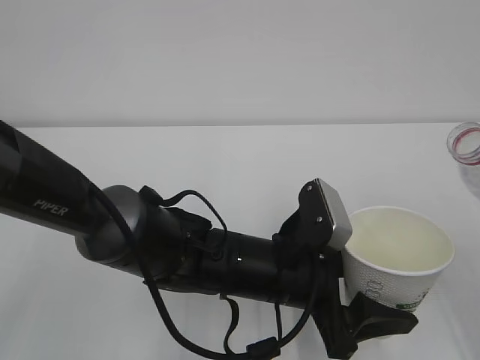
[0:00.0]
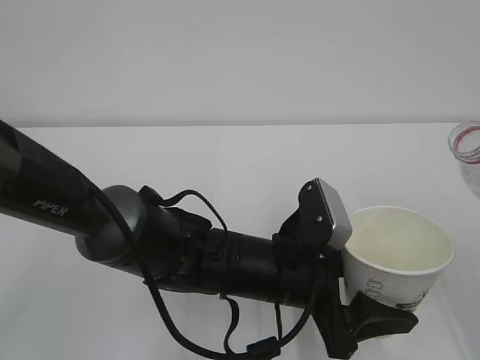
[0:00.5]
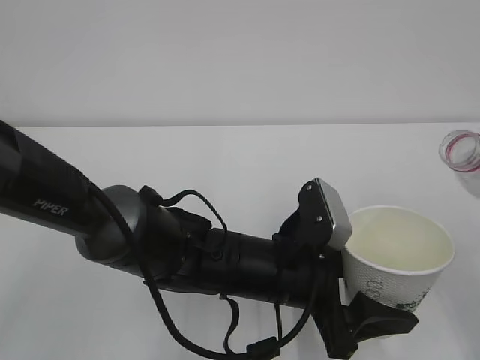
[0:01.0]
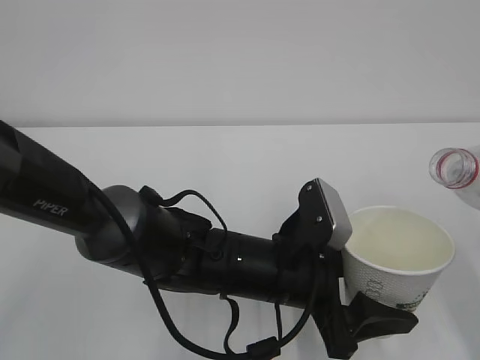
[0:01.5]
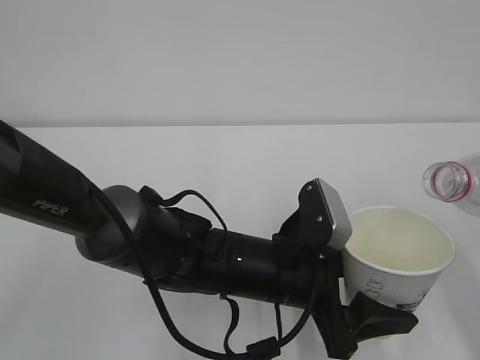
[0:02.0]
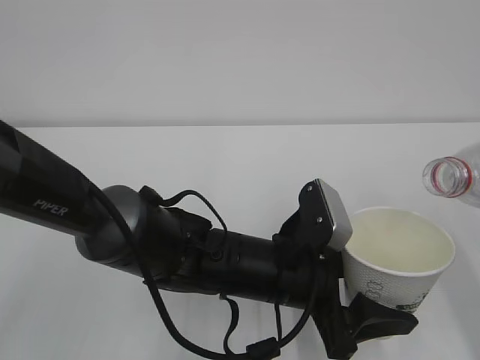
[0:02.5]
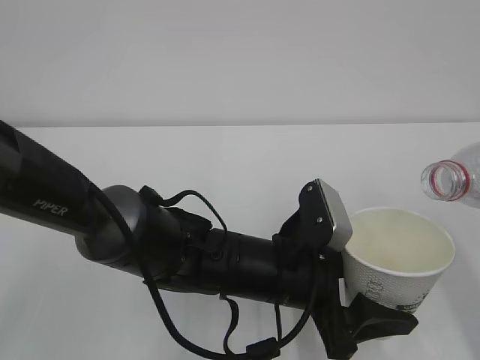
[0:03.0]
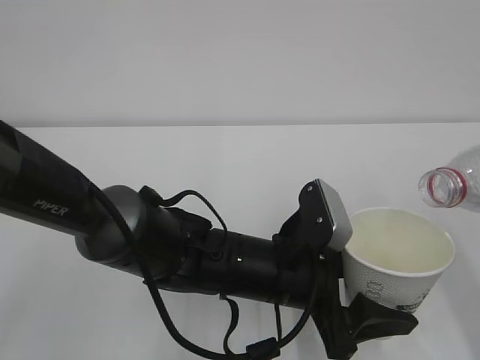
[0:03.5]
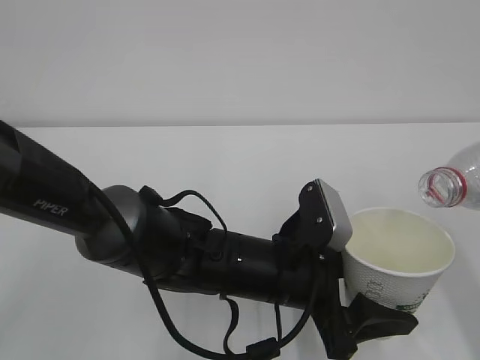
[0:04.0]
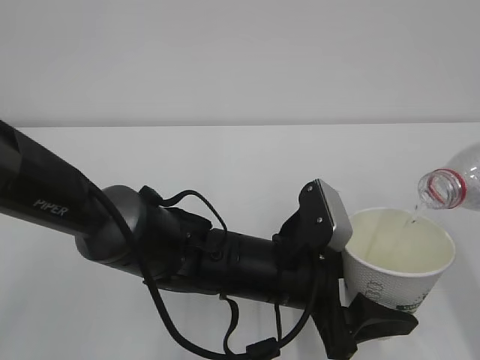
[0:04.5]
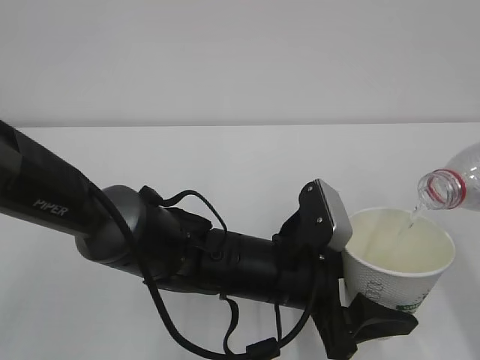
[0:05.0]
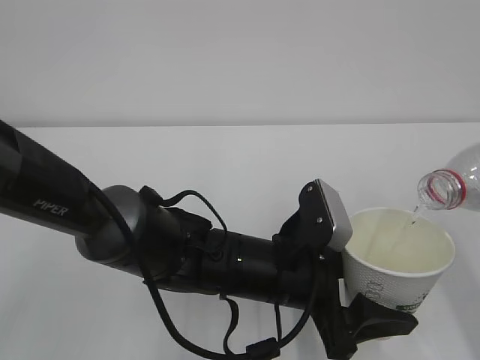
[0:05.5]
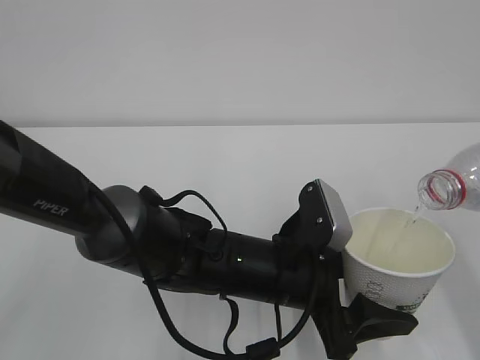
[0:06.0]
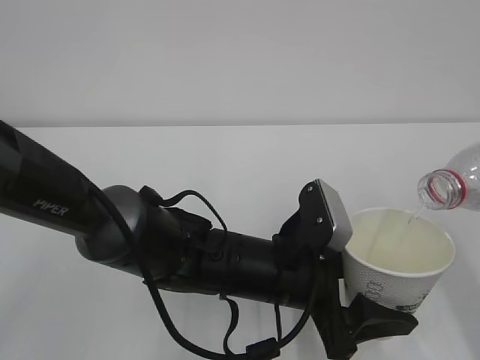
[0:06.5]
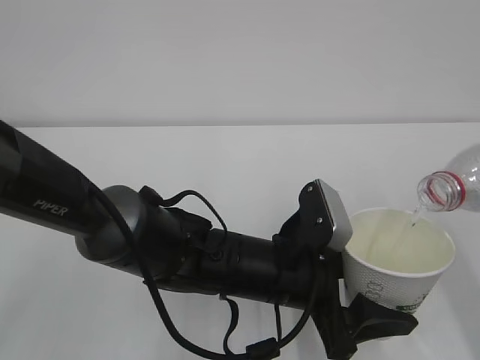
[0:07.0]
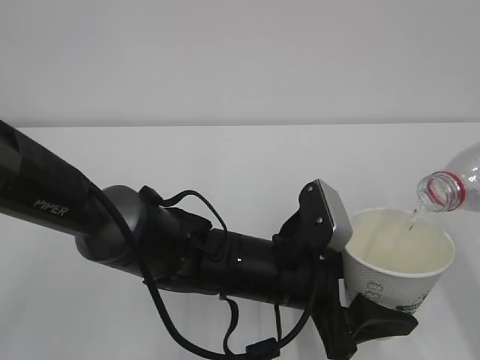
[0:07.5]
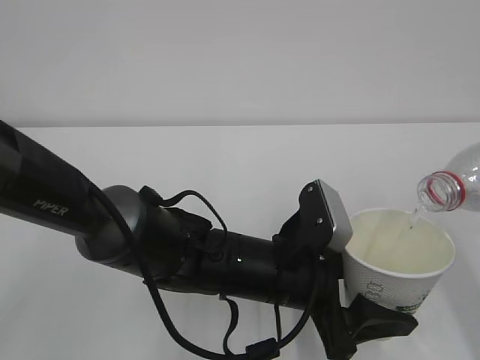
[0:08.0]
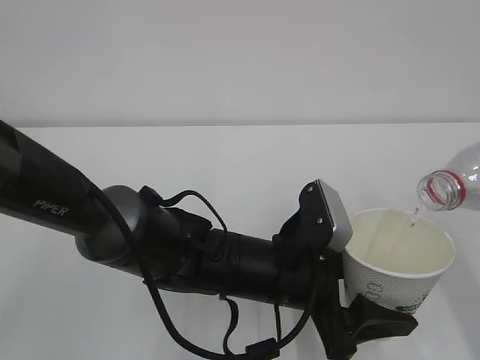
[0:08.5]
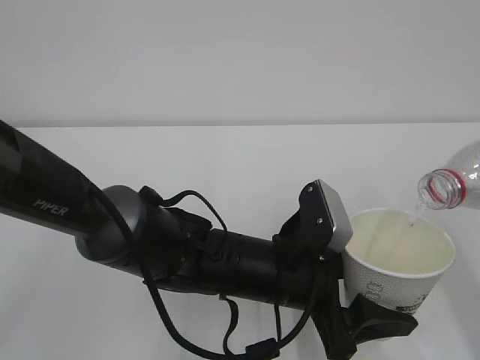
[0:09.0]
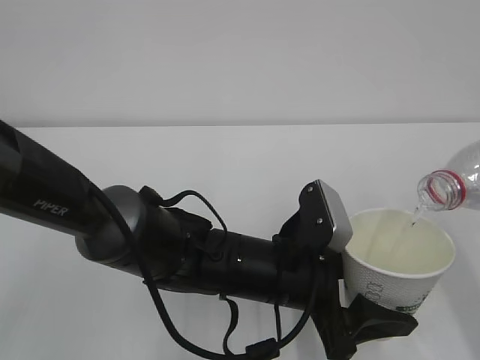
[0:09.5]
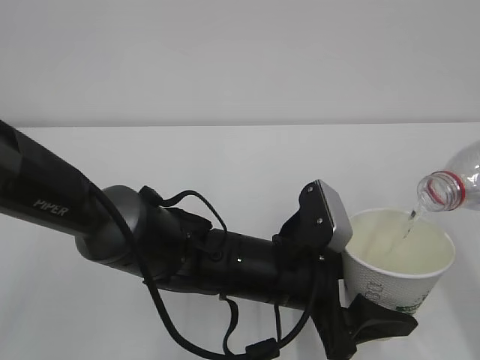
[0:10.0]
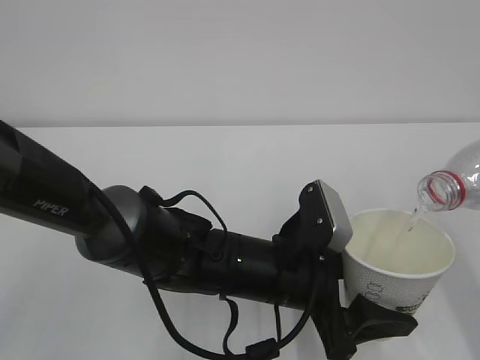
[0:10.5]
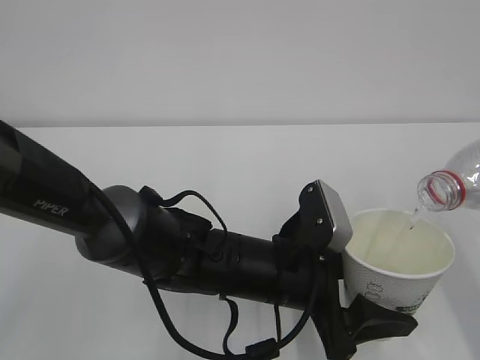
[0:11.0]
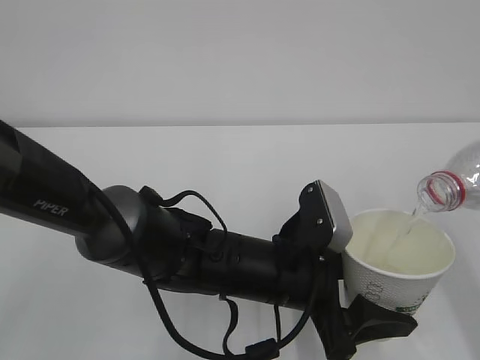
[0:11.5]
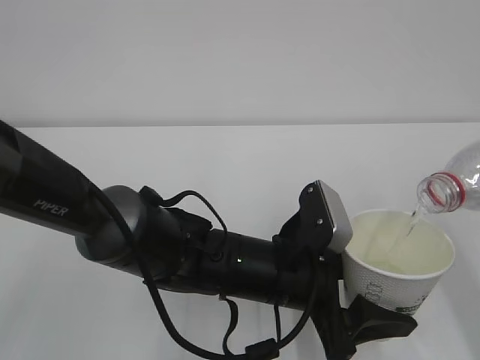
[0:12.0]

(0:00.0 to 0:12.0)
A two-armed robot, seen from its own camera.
0:00.0 - 0:02.0: There are only small adjustments of the grippers.
0:02.0 - 0:04.0: The grippers move only a little.
0:04.0 - 0:10.0: The two grippers keep their place.
0:10.0 - 0:12.0: The two grippers keep their place.

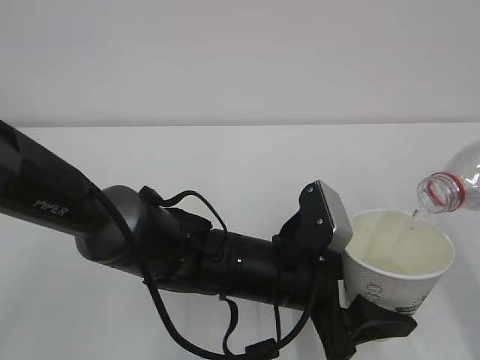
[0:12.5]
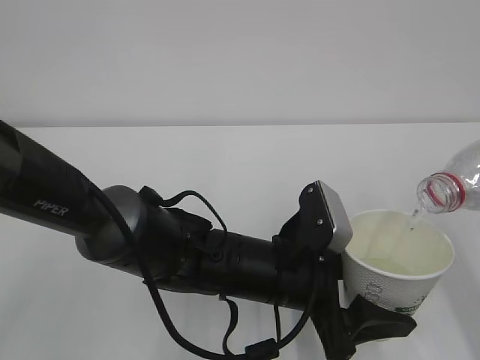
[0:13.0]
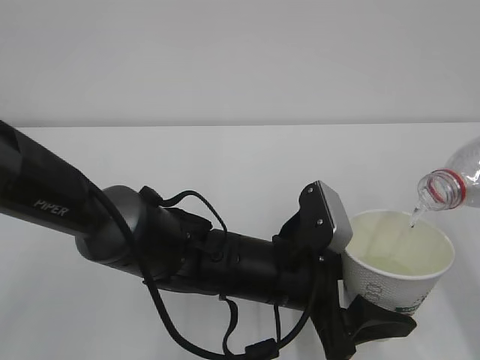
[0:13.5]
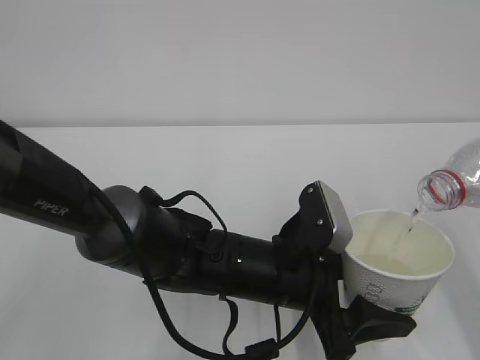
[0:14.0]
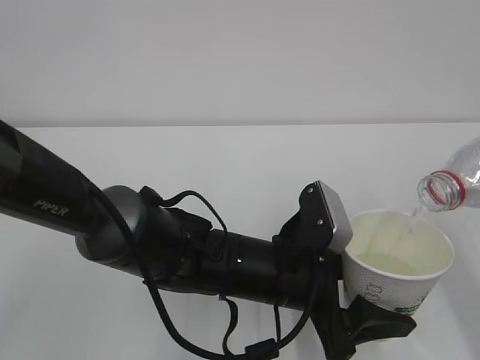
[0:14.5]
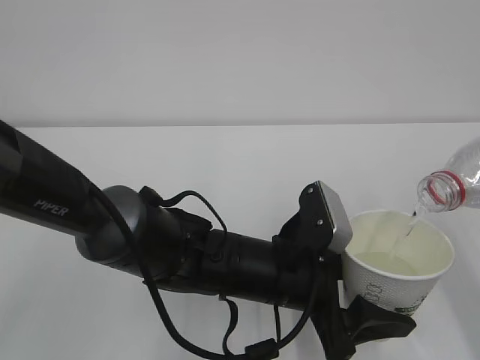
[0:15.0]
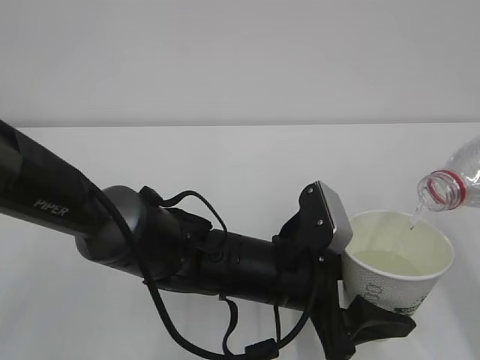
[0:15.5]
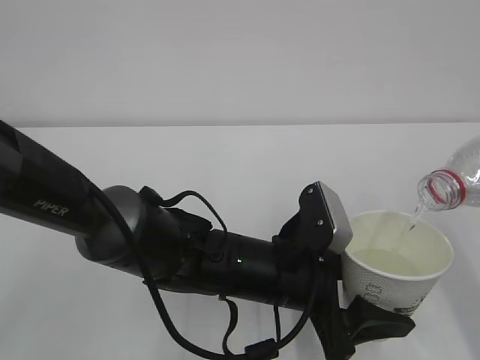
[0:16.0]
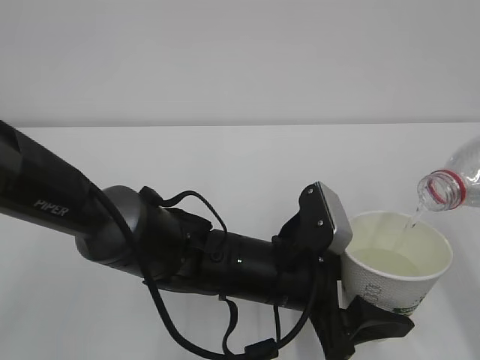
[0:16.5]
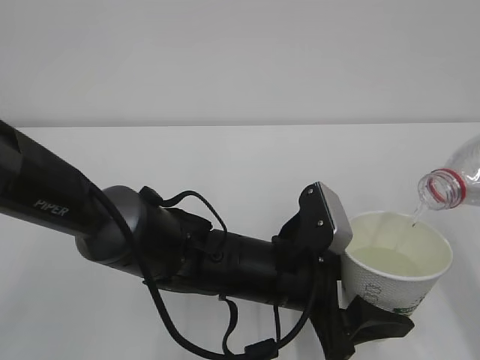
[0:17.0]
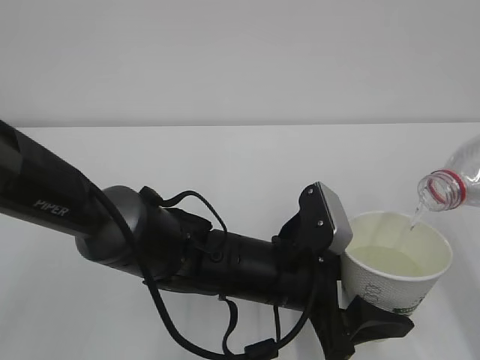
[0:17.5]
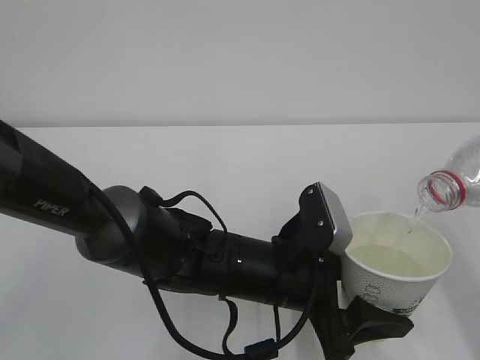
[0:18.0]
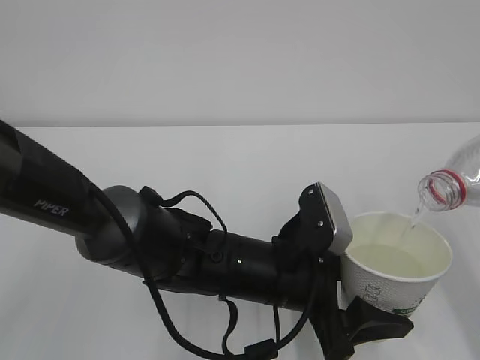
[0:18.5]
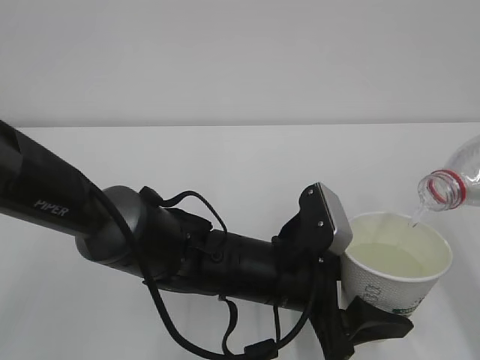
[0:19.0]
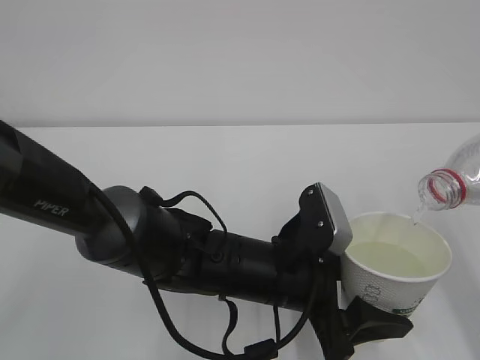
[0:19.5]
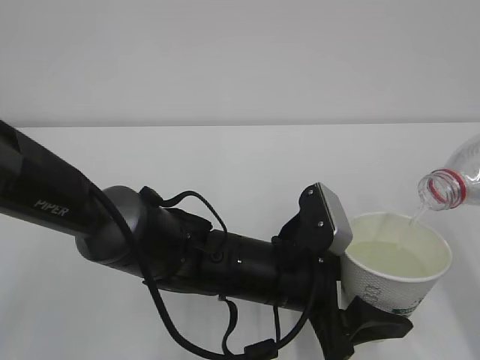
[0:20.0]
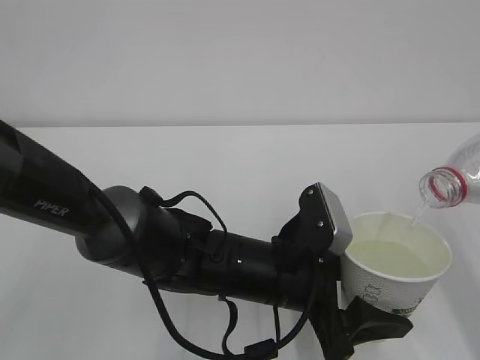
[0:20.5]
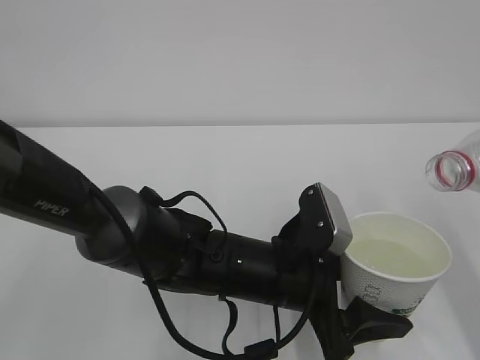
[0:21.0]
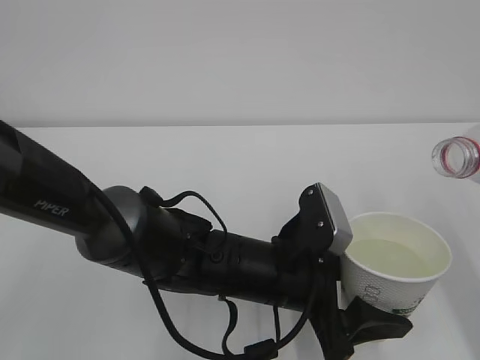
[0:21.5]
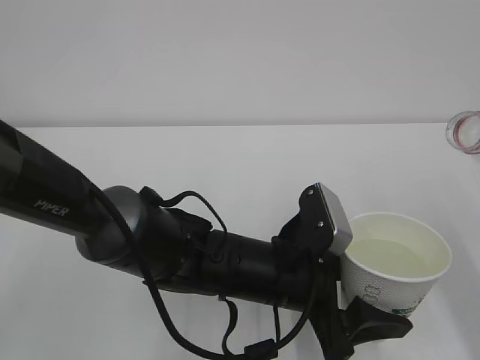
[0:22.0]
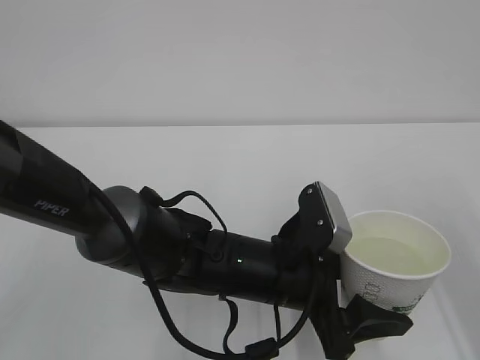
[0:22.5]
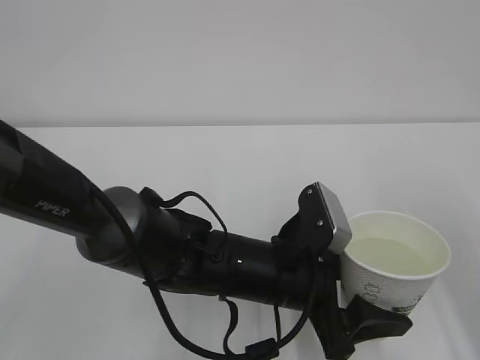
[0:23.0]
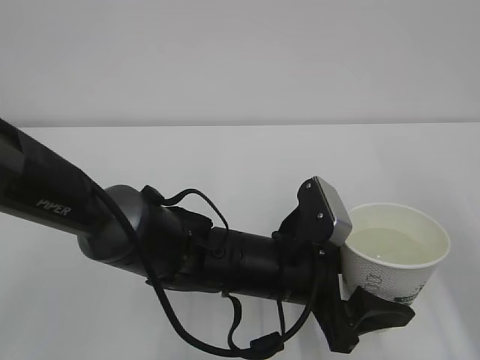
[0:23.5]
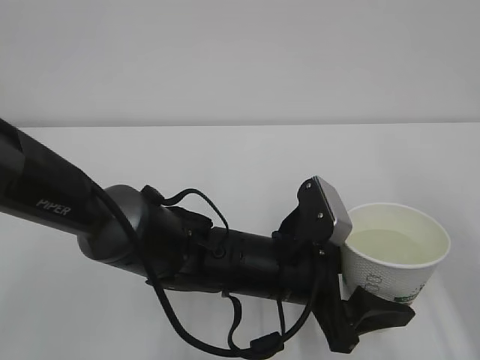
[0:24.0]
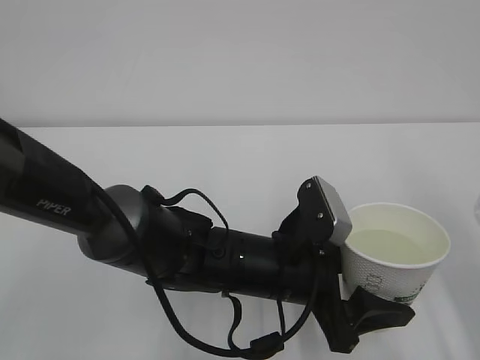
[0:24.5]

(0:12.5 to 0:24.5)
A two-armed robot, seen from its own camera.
0:12.5 - 0:20.5: Neither gripper changes place.

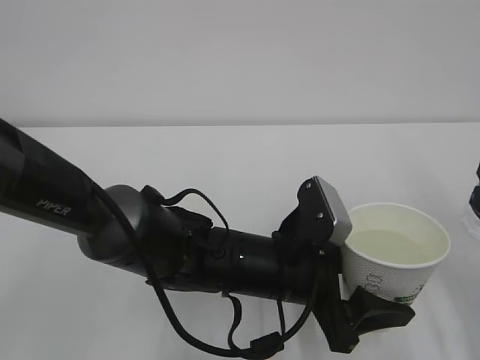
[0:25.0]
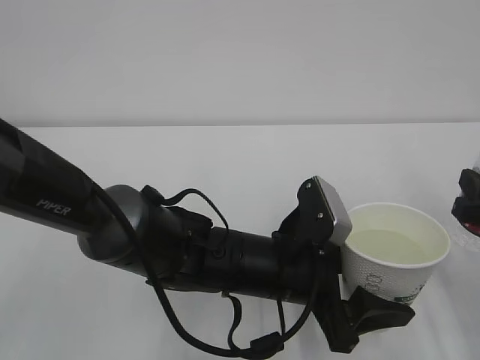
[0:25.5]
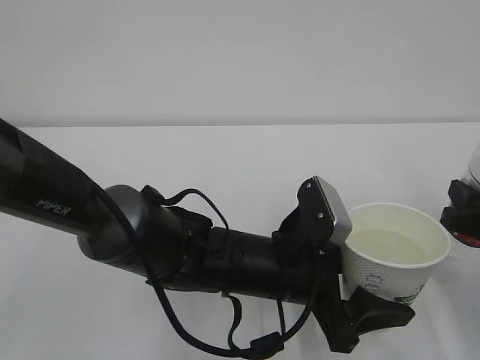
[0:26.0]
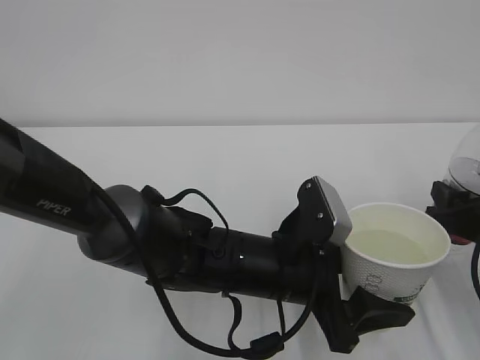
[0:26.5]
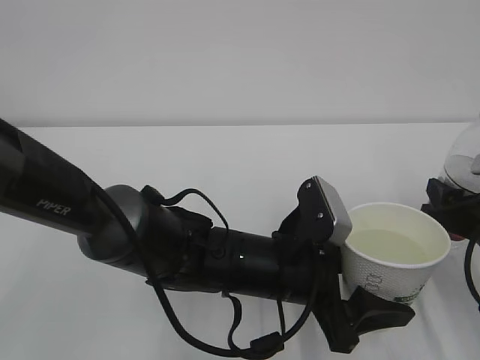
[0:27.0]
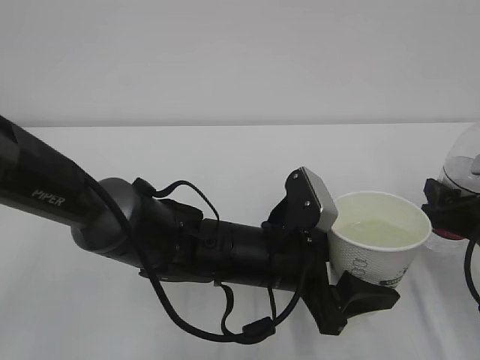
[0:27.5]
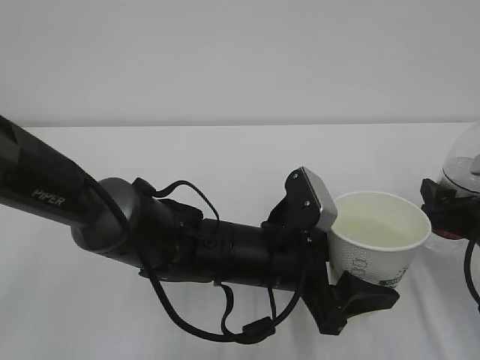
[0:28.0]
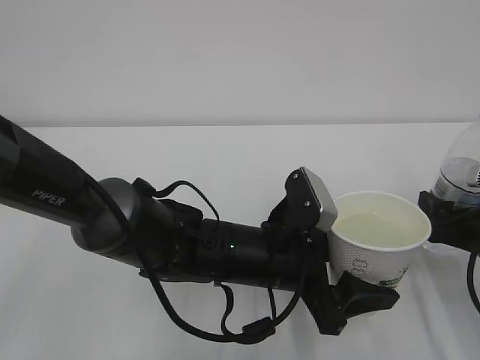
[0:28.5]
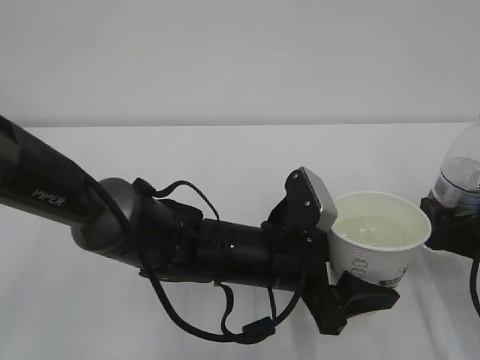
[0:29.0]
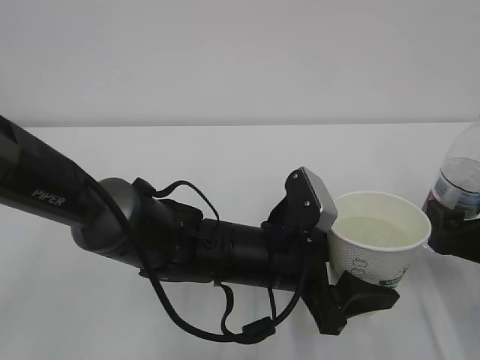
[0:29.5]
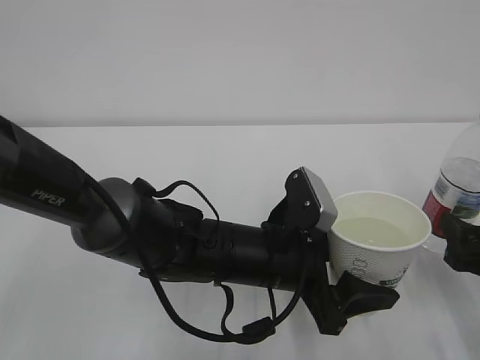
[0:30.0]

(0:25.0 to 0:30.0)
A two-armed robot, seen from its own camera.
0:25.0 - 0:27.5: The right gripper goes roughly 5 cm downward, and opens its fingers.
0:27.5 - 0:30.0: The right gripper is displaced backward by about 5 cm, and opens up.
